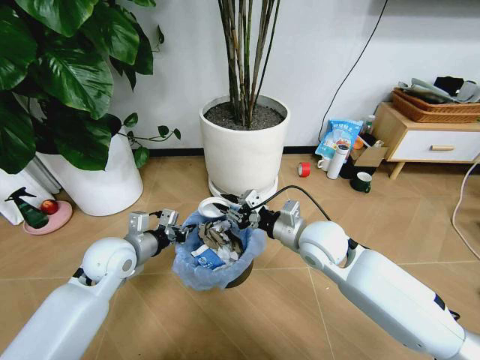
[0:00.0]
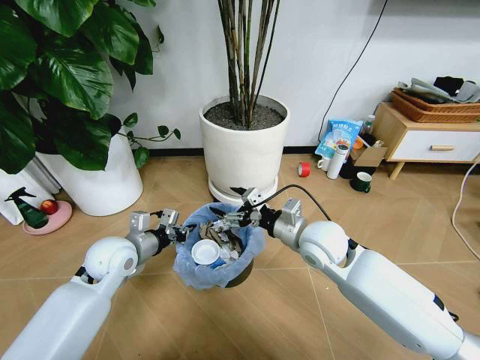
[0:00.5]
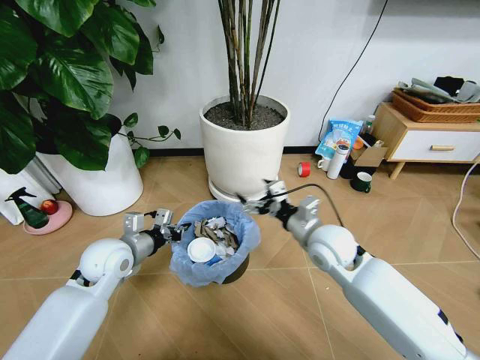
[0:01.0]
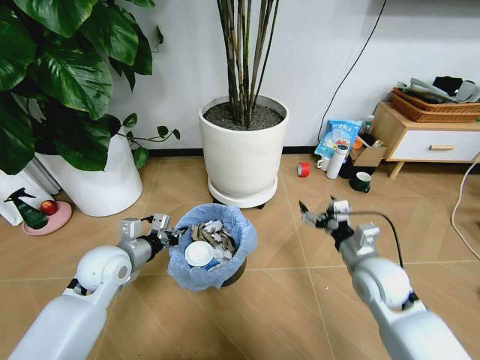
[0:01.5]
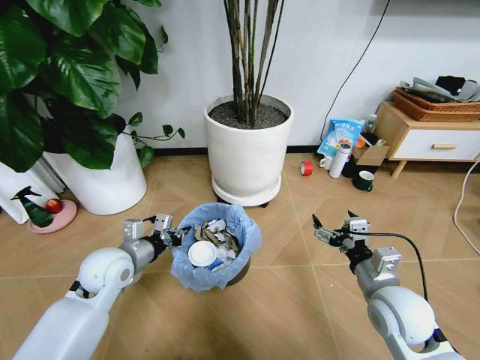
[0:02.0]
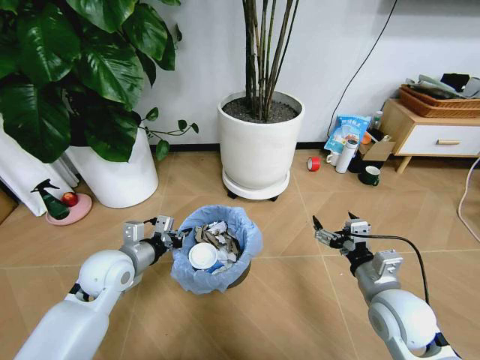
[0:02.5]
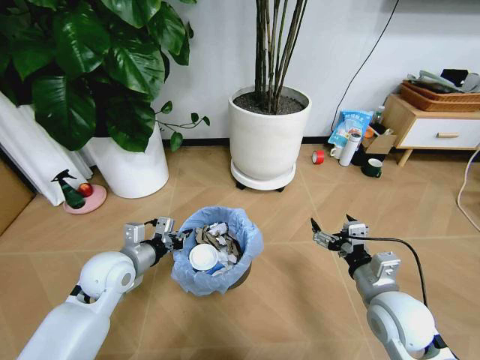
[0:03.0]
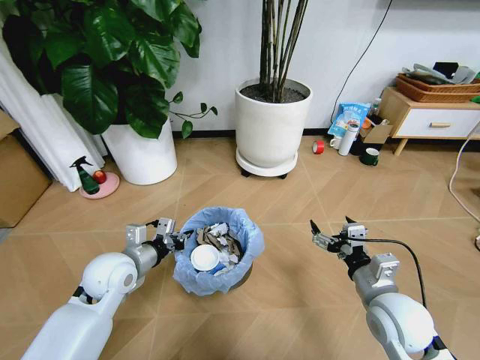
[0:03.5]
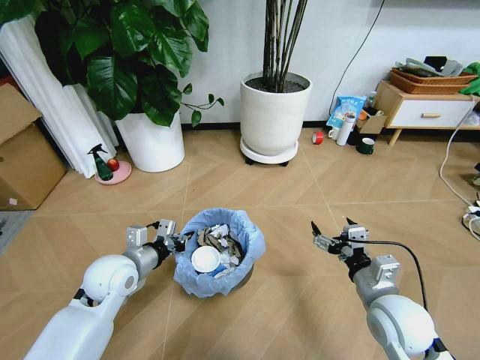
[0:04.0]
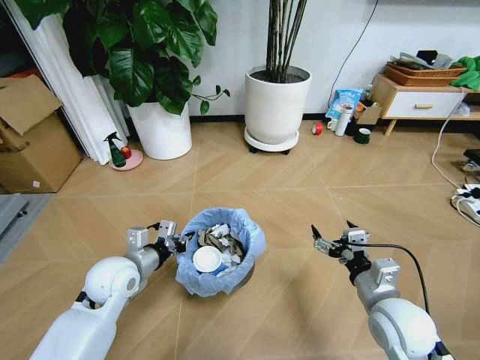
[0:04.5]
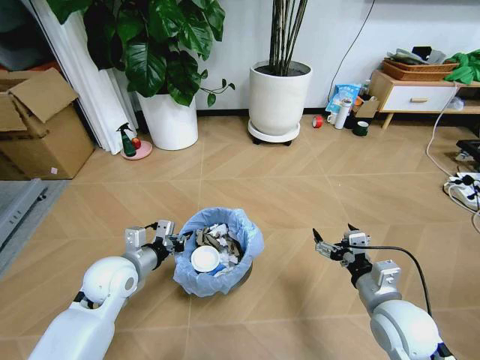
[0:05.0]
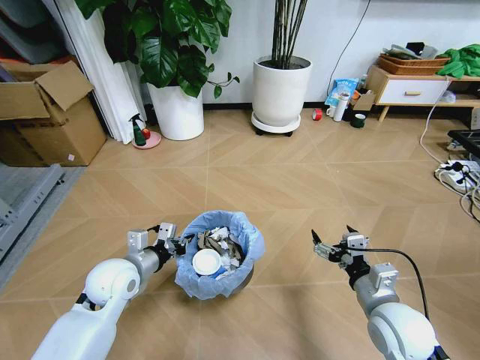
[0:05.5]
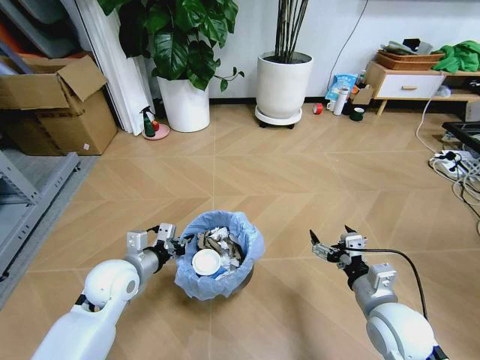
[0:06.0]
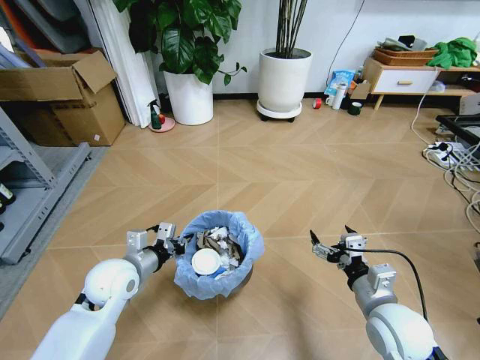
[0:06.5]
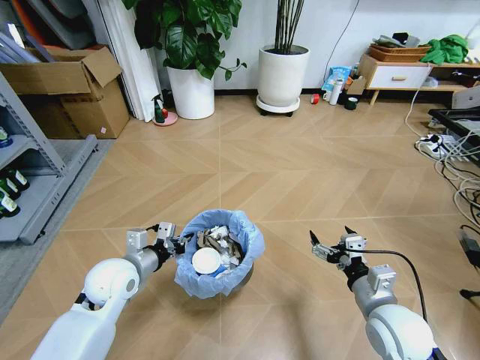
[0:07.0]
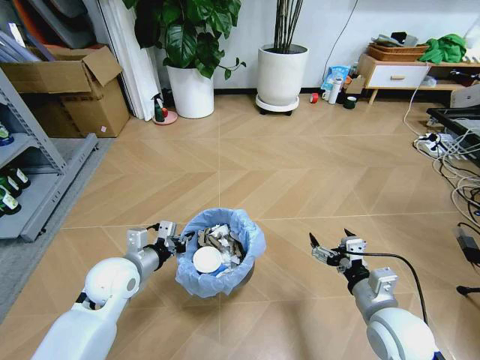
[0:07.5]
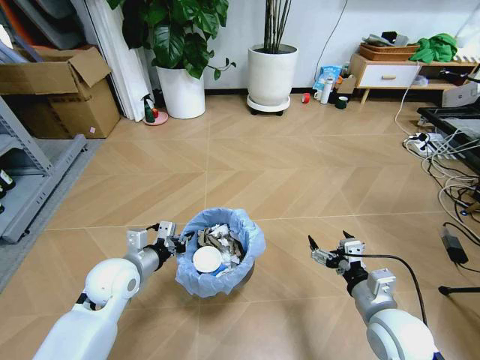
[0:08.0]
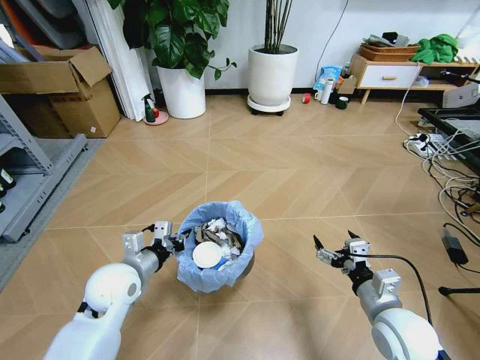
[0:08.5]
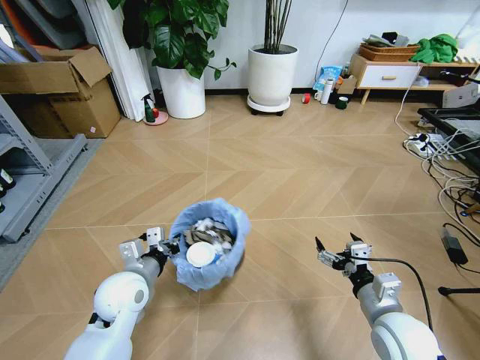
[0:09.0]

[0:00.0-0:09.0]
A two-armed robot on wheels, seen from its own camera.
Task of the whole recording: Pick up the trash bin and place the garbage on the floor into it.
0:00.0 to 0:02.0: The right gripper goes some 15 cm backward and to the right, and opens.

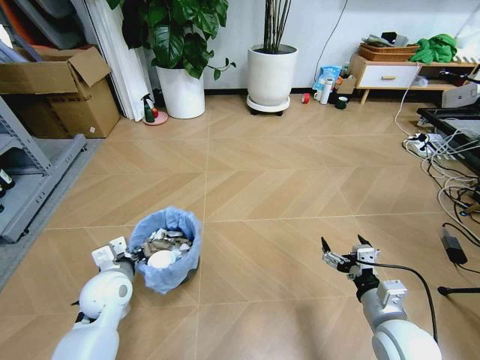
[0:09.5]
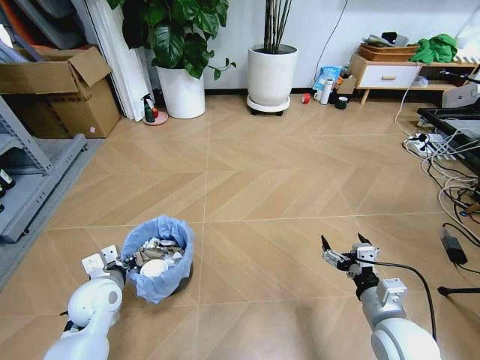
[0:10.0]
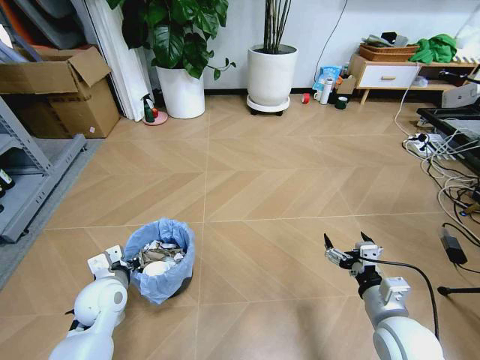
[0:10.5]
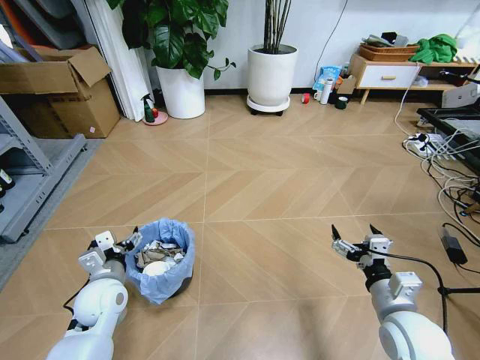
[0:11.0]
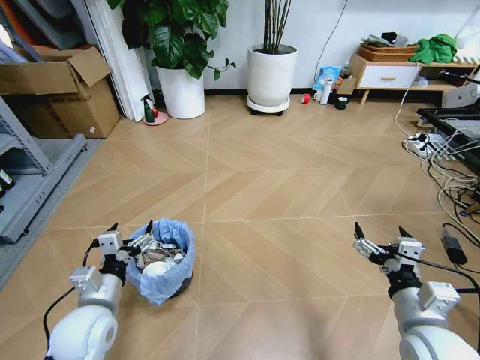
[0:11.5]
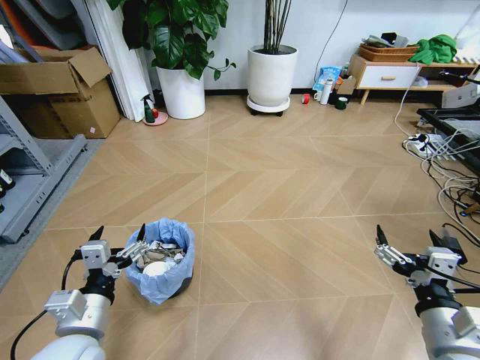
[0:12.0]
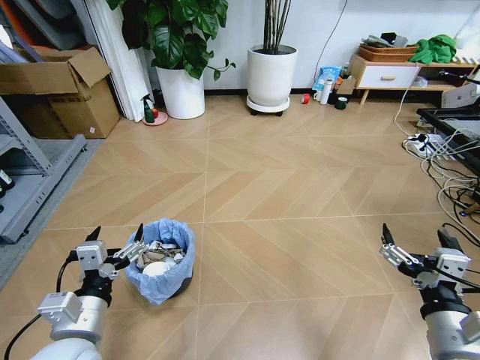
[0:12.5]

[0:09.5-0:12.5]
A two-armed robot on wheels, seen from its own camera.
Task of the whole recording: Pick up the trash bin and place the garbage on the floor into it.
0:09.5 to 0:11.0: The left gripper opens.
0:11.0 to 0:12.5: Both grippers move backward and upward, roughly 15 cm.
